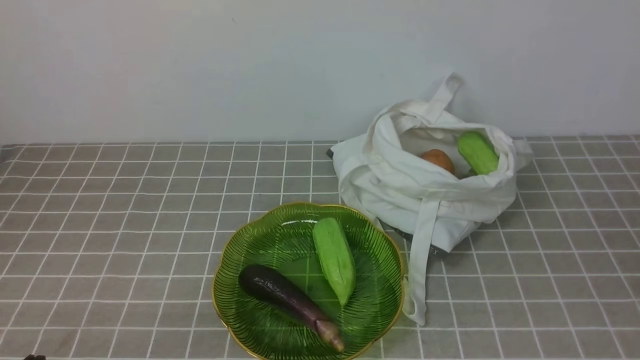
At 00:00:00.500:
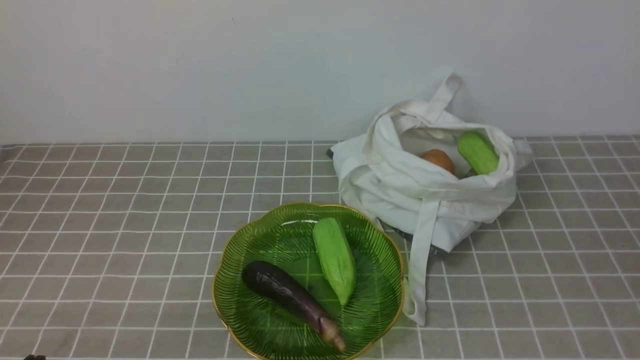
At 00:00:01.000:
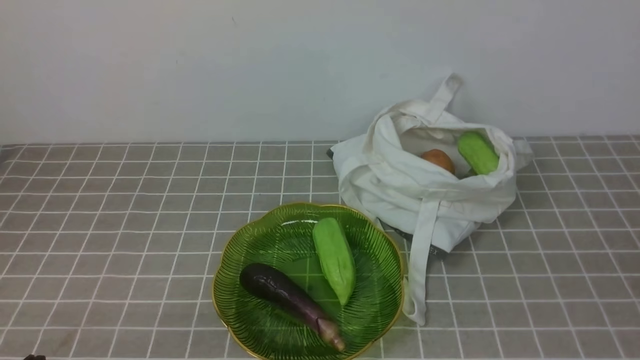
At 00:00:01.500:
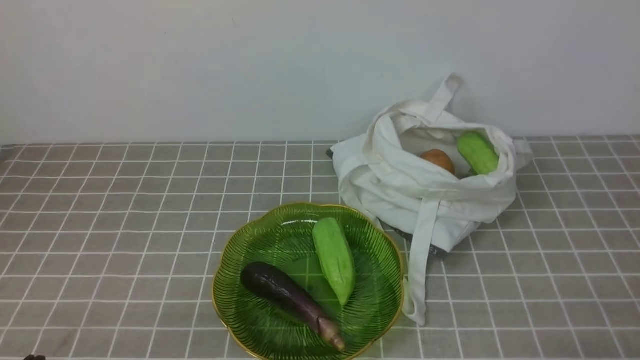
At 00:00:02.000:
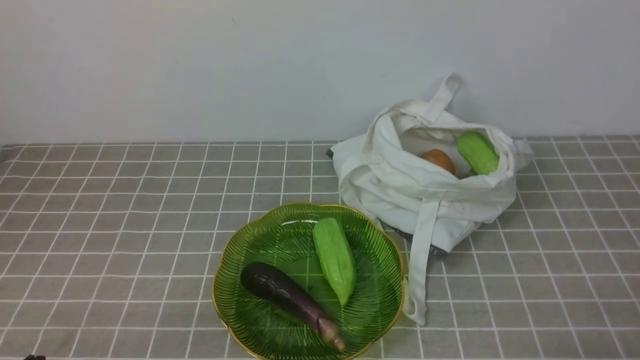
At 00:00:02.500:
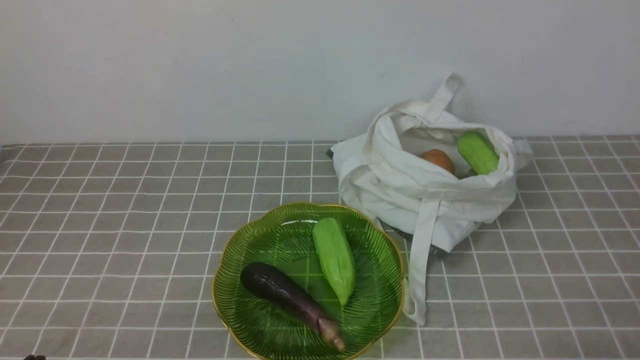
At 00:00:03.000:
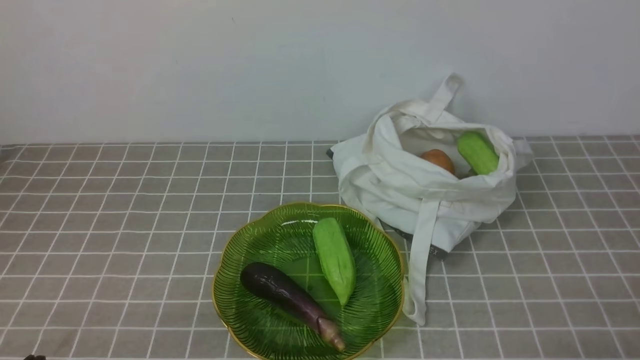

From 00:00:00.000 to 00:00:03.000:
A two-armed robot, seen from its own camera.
Task of the whole recording: take vegetables from bag on grey coffee tablecloth place on plate.
From 00:00:01.500 to 00:00:03.000: The two grippers keep their place.
